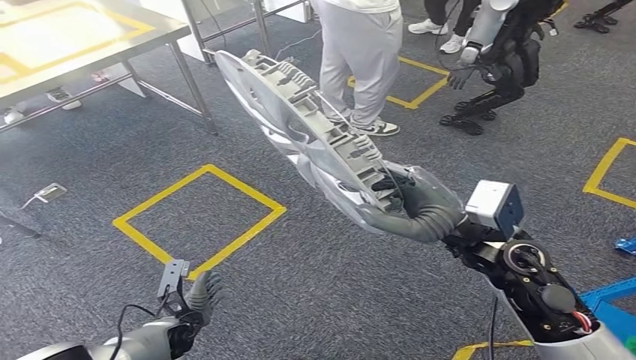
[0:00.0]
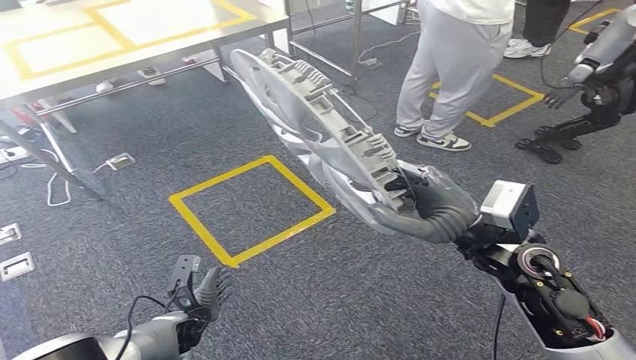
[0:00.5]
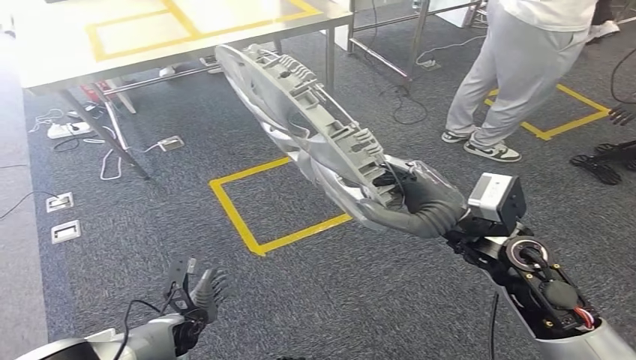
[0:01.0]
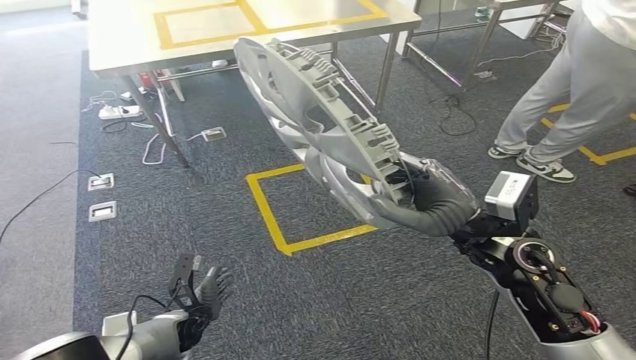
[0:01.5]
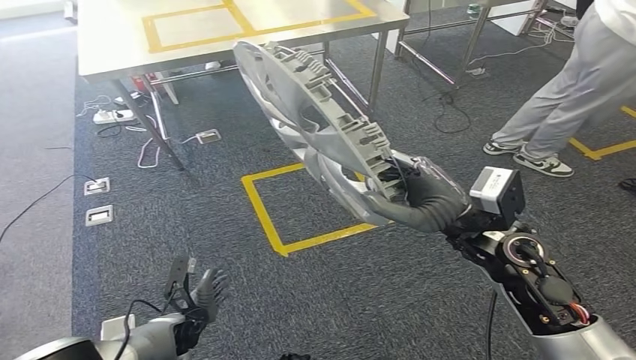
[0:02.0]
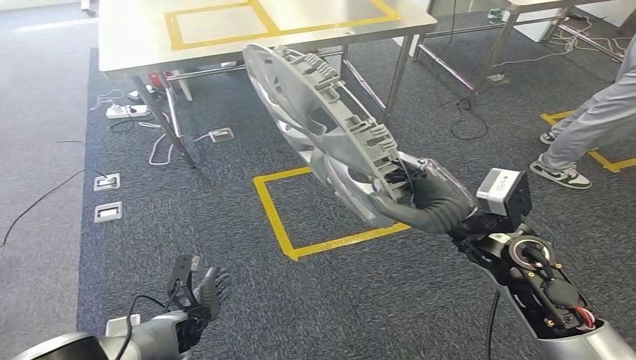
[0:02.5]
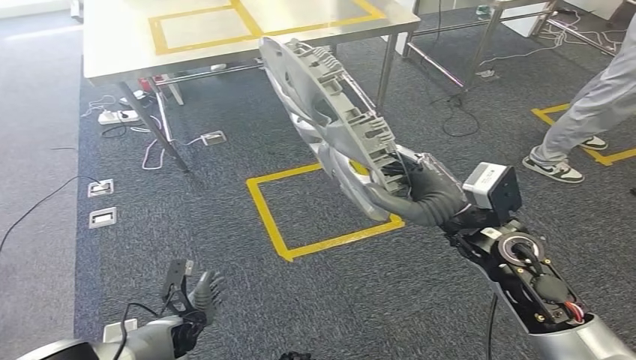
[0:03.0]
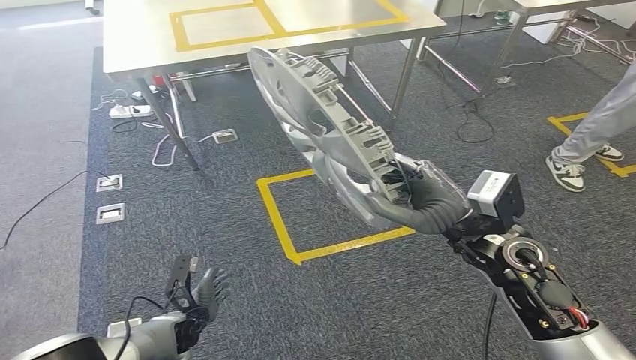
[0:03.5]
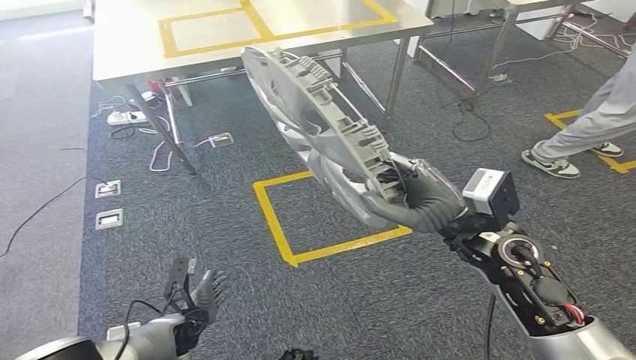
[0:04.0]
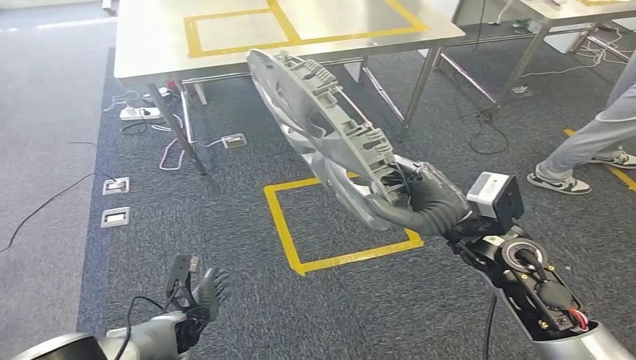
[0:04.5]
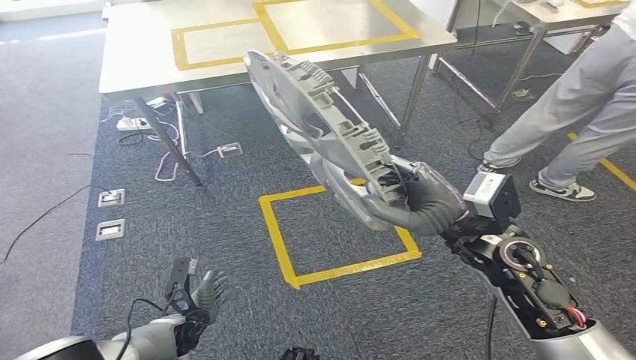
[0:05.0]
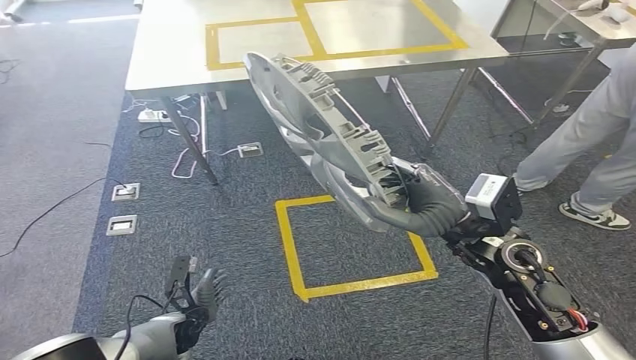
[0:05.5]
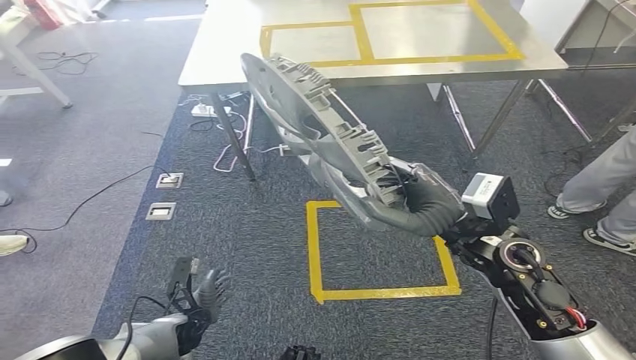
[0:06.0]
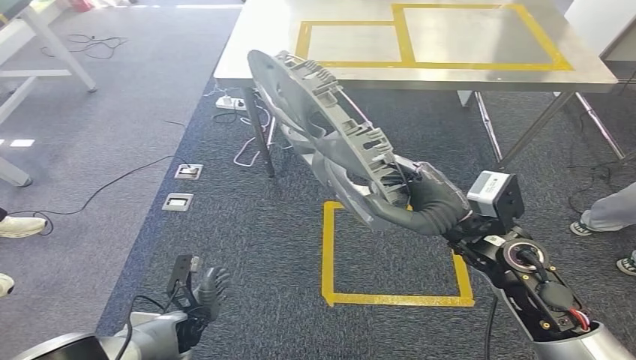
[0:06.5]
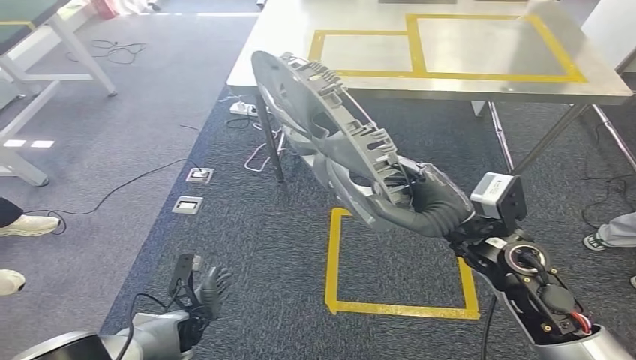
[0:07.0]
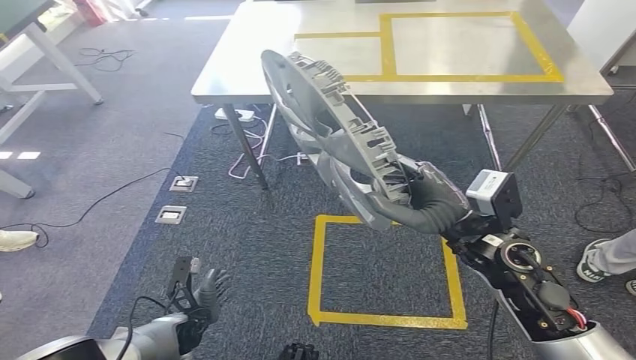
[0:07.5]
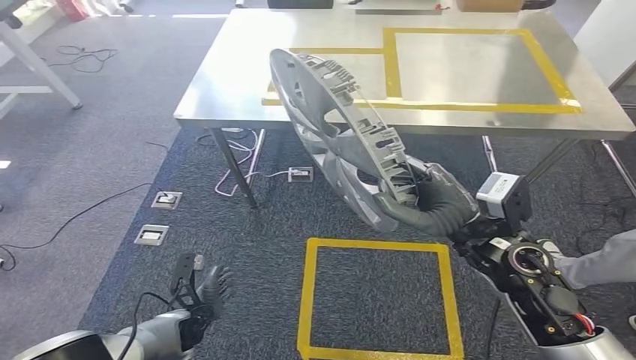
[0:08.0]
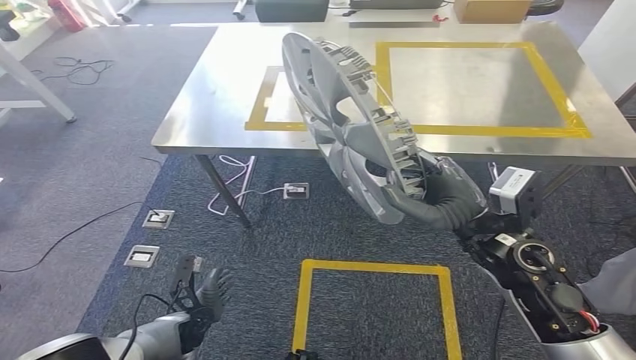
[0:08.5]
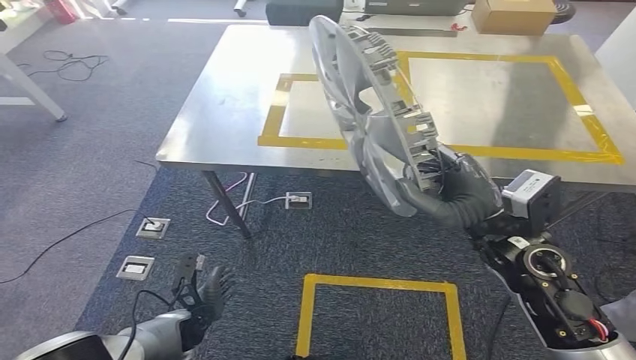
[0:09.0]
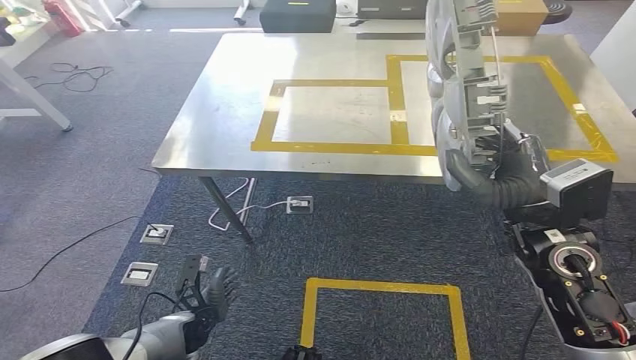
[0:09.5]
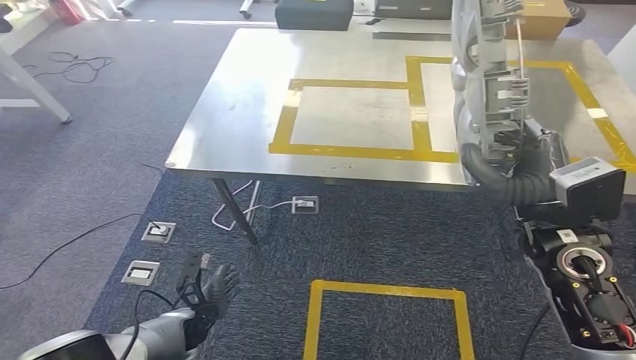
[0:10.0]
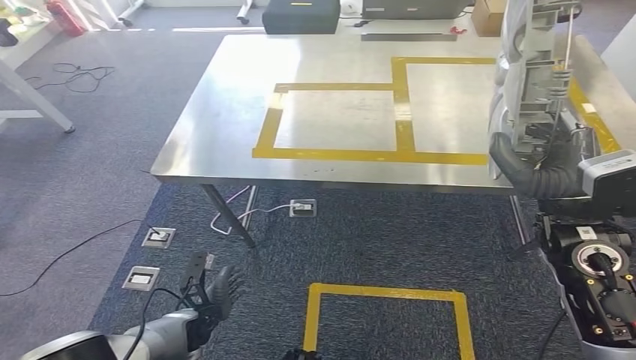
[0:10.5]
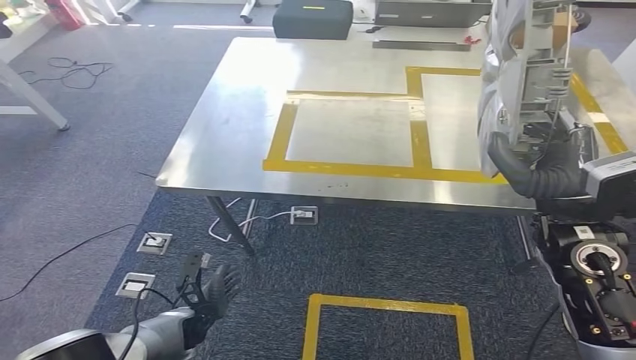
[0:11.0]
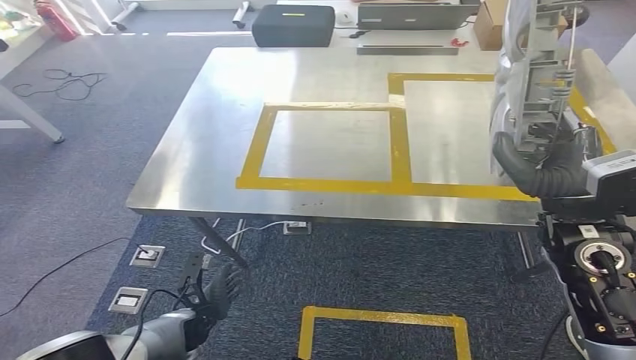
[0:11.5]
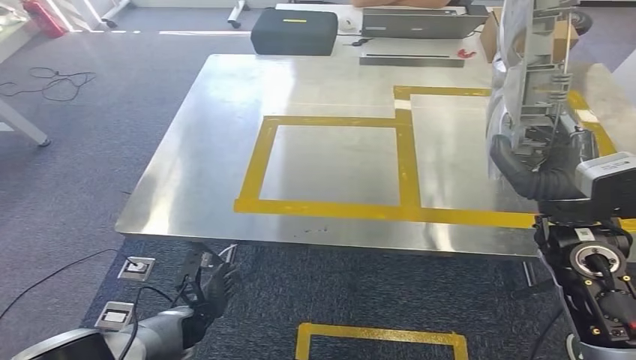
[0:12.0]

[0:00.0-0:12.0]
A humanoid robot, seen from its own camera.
Step, 0:00.0 to 0:06.5: Move the small parts to the workbench.

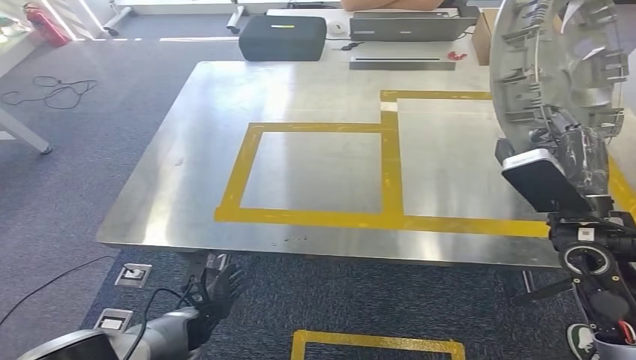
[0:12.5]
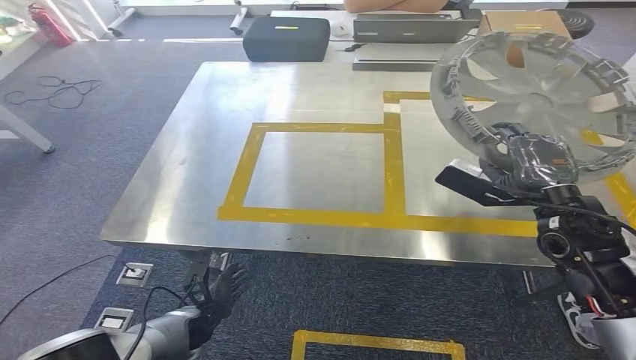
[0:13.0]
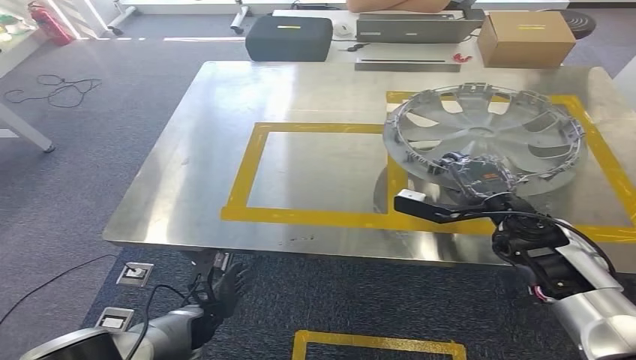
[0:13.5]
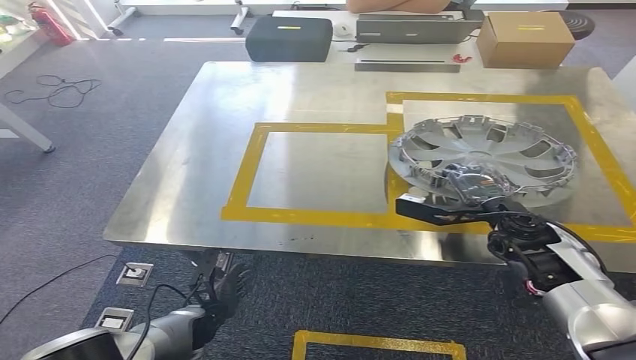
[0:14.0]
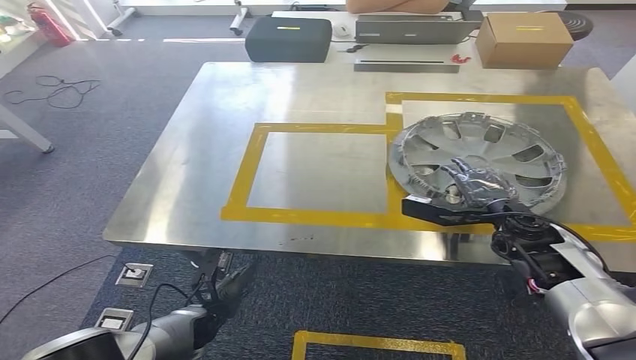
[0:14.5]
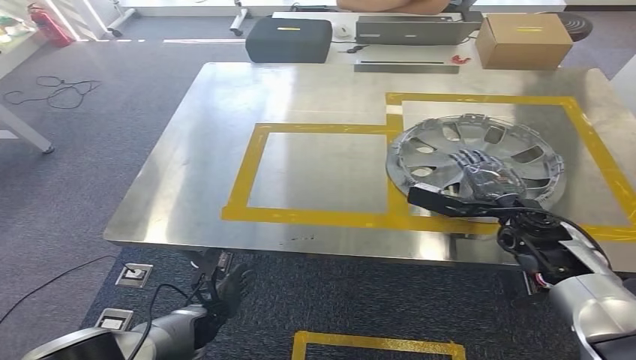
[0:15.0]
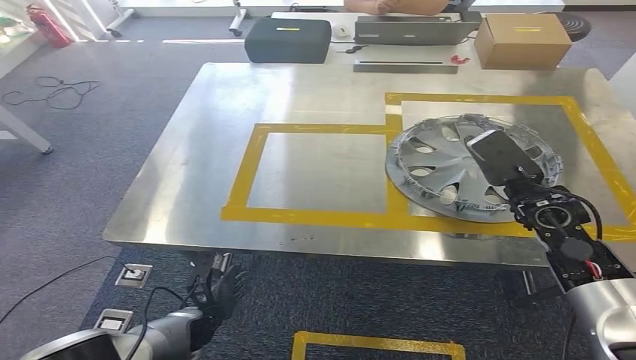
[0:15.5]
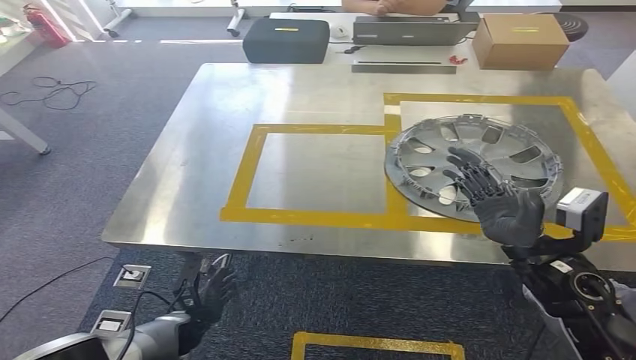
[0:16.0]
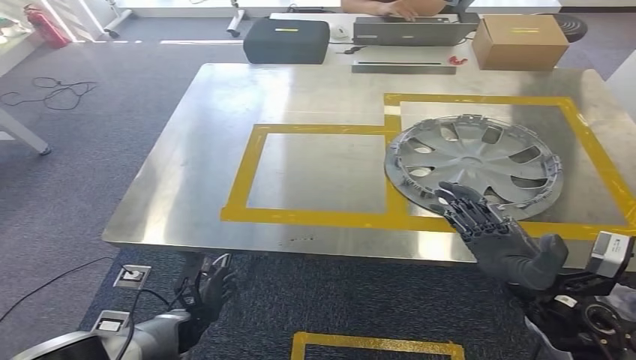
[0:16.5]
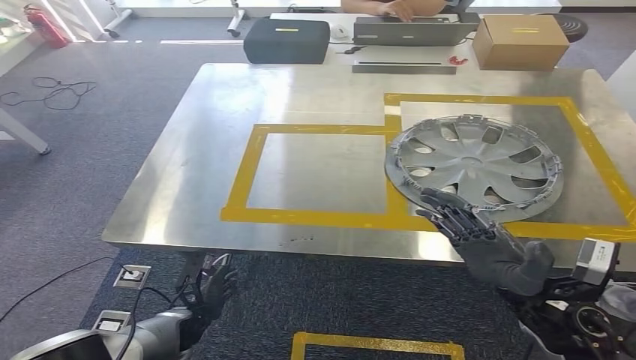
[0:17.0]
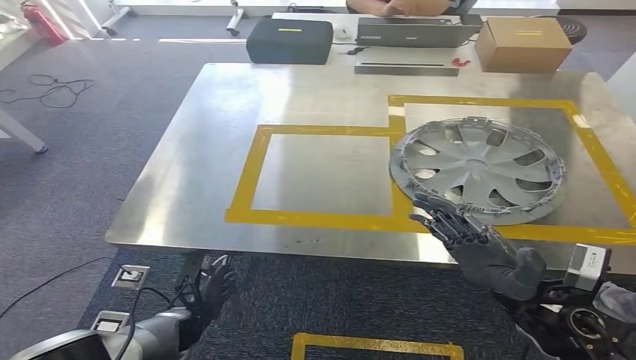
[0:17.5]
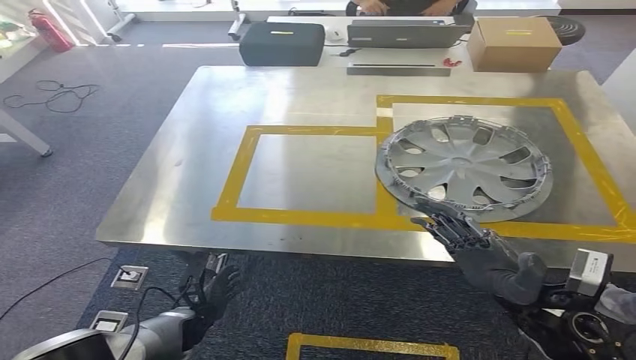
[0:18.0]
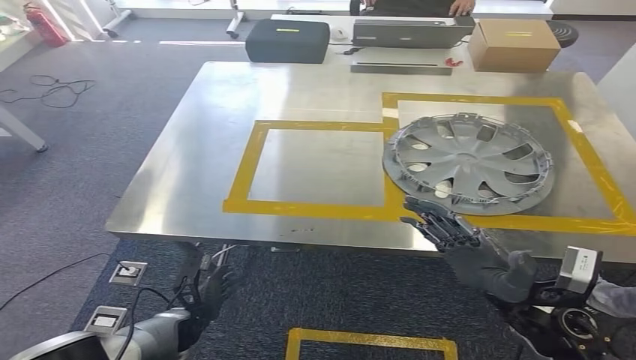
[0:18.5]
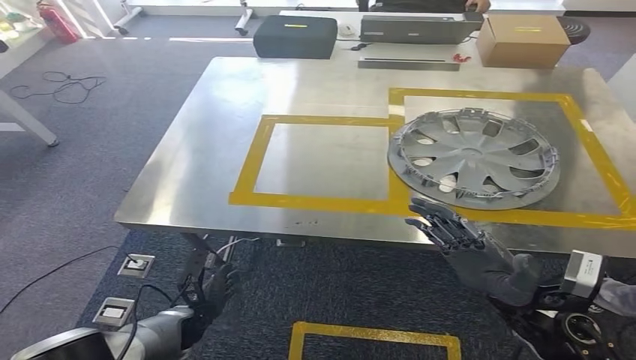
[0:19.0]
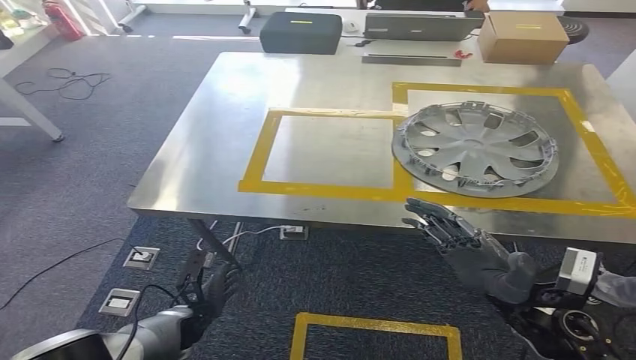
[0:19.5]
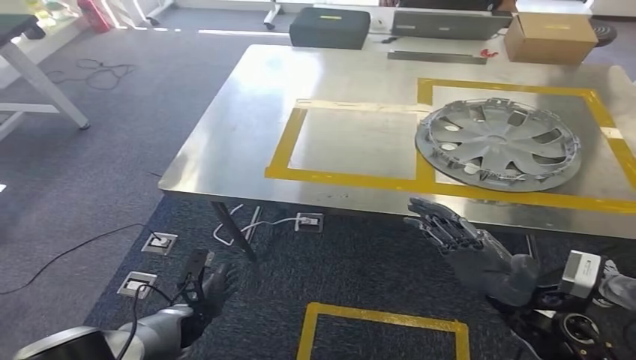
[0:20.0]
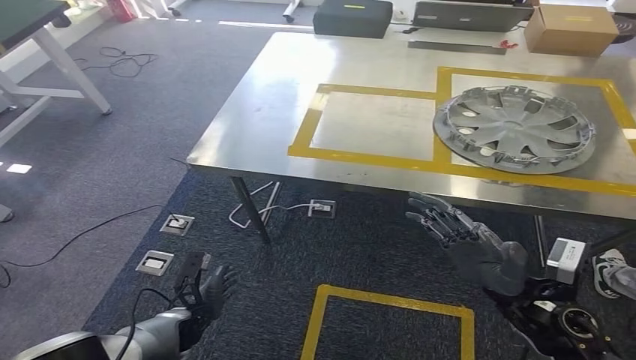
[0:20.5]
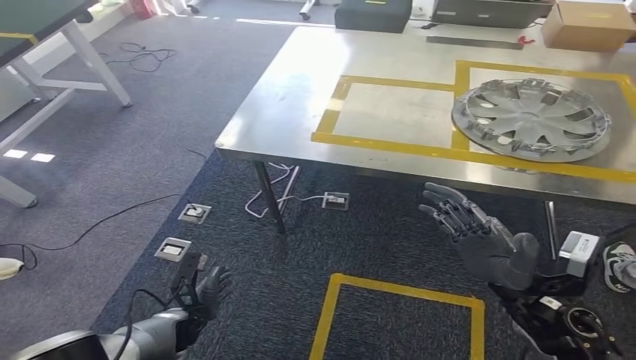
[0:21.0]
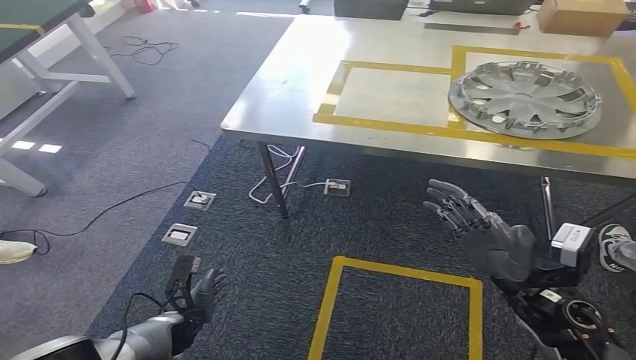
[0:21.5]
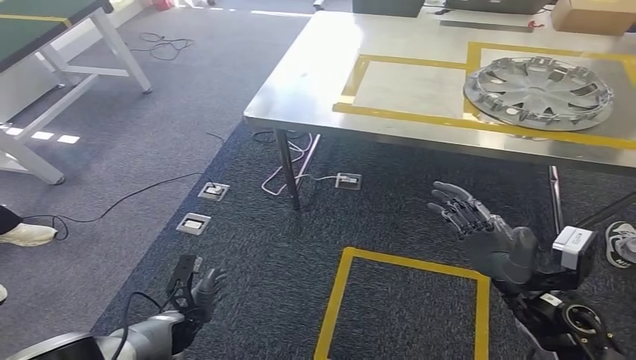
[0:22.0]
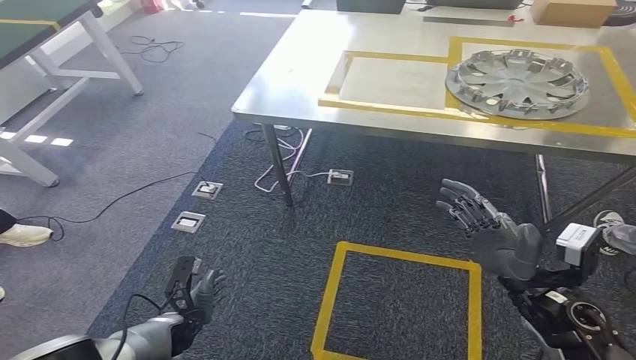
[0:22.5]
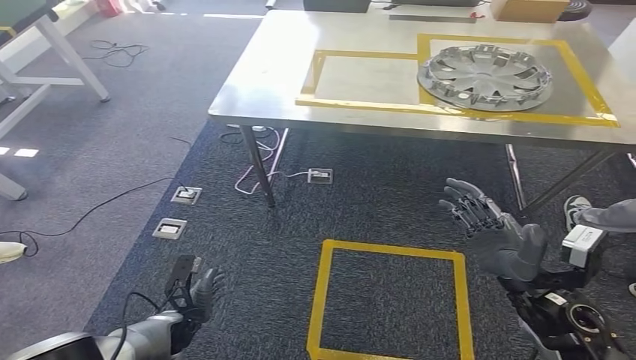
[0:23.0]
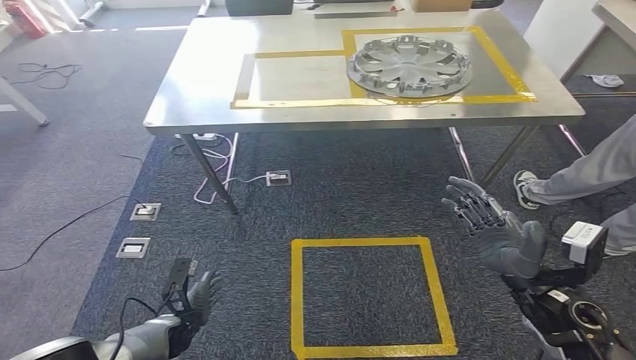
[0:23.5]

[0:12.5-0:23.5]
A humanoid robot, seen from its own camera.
Step, 0:12.5 to 0:17.0: Insert the small parts into the corresponding holes on the workbench.
0:14.5 to 0:16.0: The right hand is displaced backward by roughly 10 cm.
